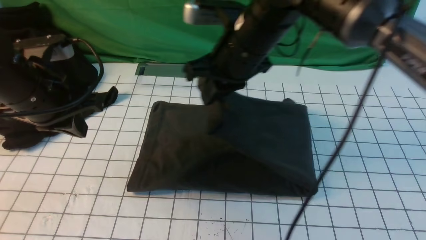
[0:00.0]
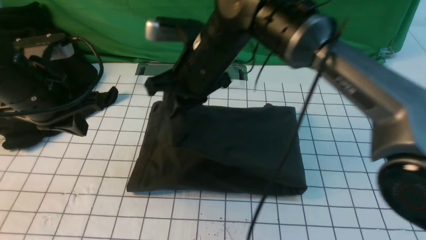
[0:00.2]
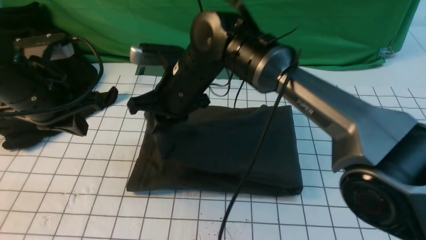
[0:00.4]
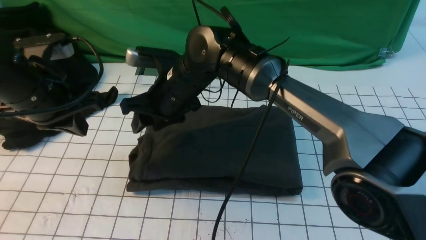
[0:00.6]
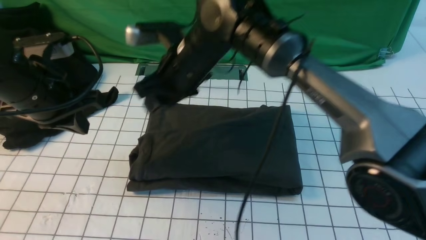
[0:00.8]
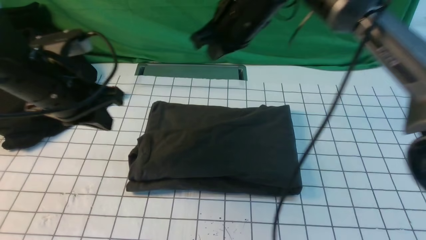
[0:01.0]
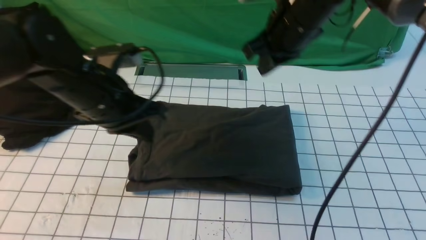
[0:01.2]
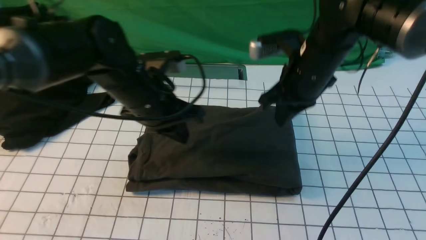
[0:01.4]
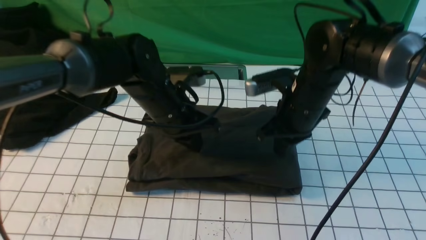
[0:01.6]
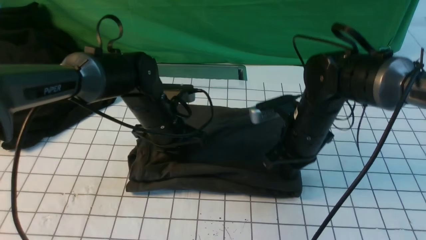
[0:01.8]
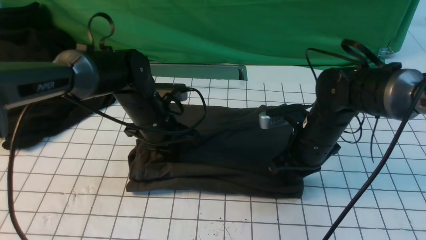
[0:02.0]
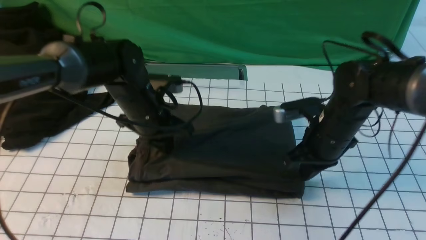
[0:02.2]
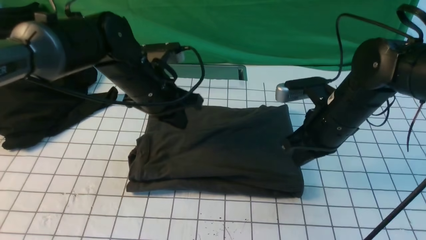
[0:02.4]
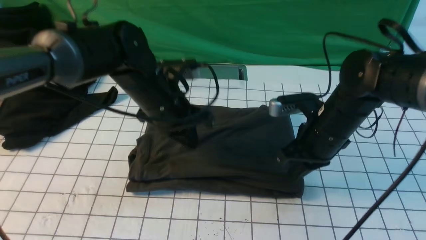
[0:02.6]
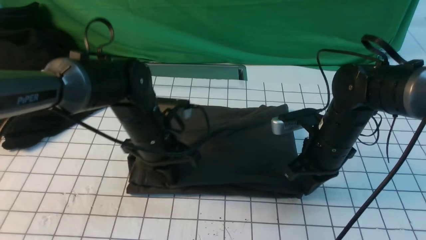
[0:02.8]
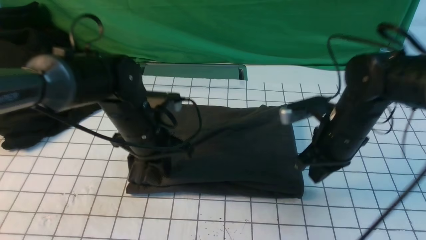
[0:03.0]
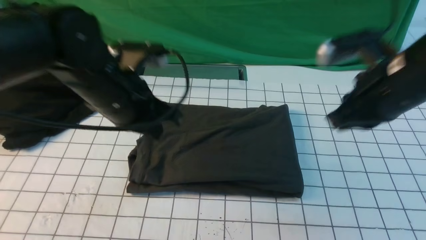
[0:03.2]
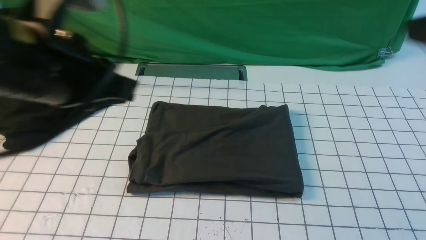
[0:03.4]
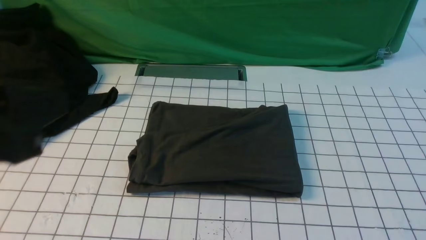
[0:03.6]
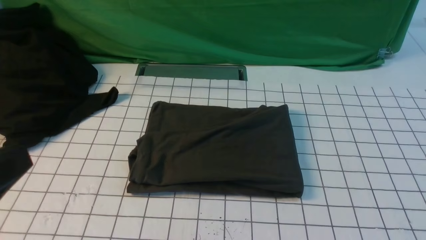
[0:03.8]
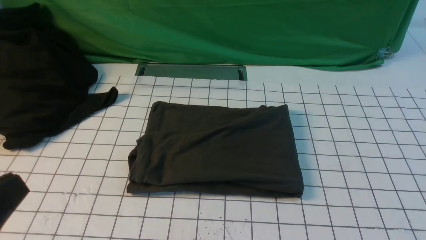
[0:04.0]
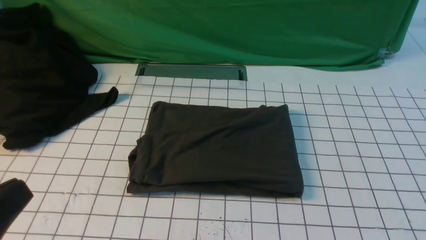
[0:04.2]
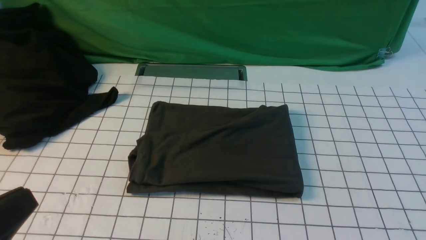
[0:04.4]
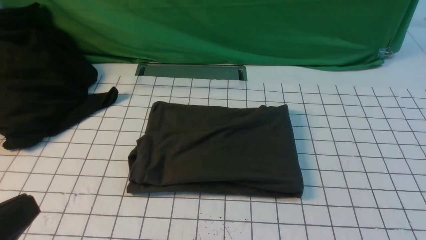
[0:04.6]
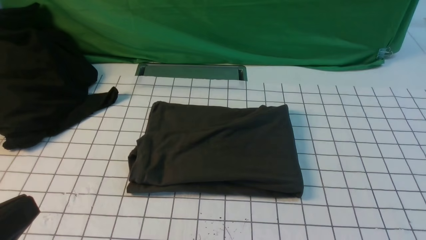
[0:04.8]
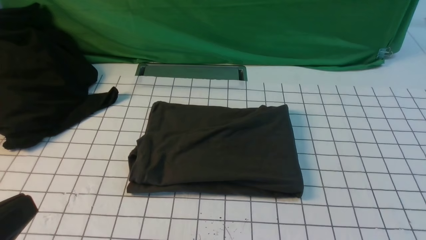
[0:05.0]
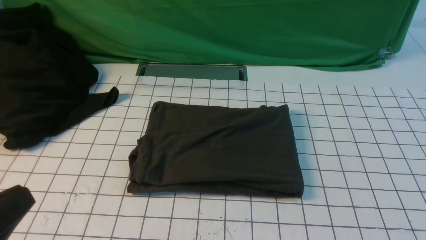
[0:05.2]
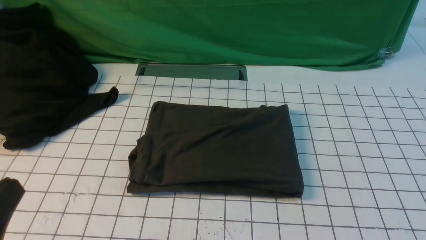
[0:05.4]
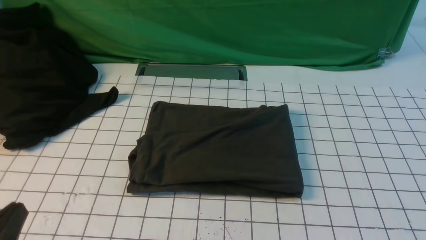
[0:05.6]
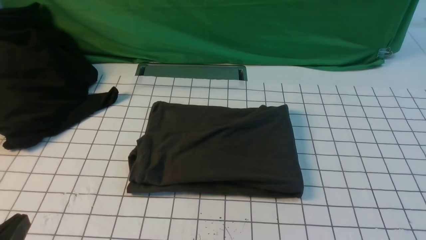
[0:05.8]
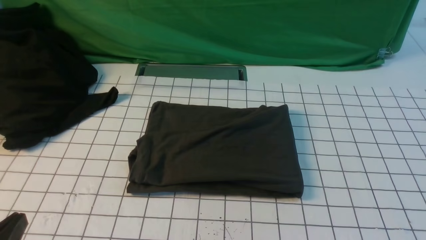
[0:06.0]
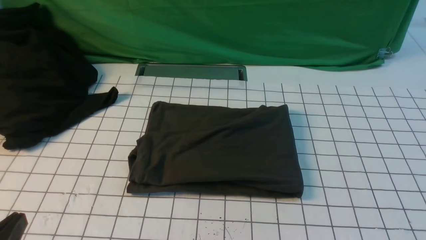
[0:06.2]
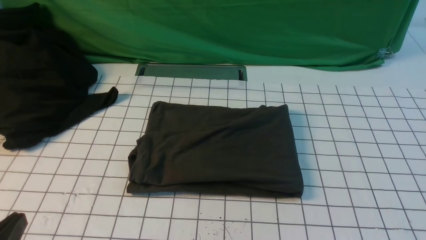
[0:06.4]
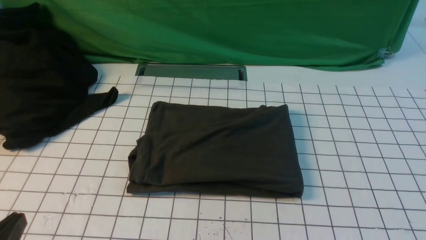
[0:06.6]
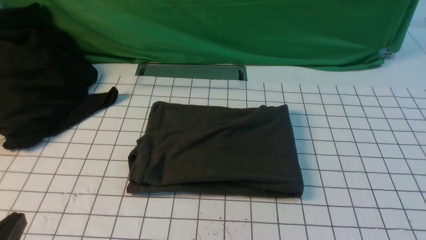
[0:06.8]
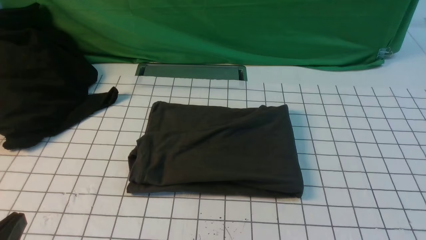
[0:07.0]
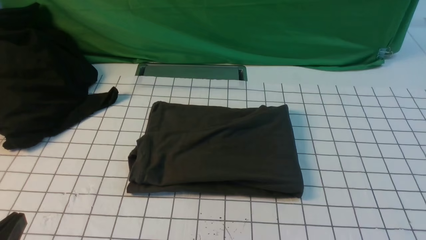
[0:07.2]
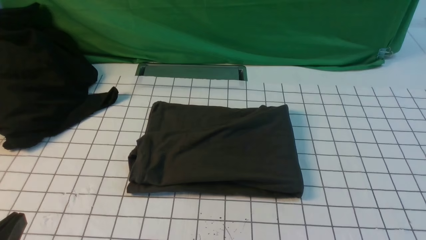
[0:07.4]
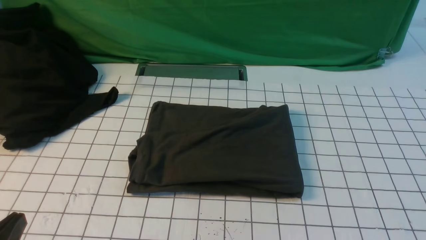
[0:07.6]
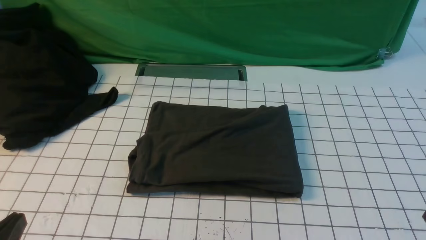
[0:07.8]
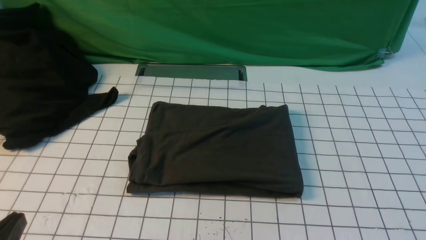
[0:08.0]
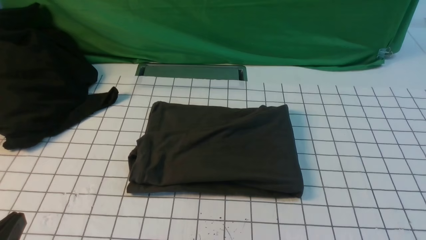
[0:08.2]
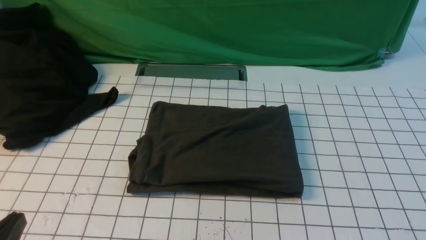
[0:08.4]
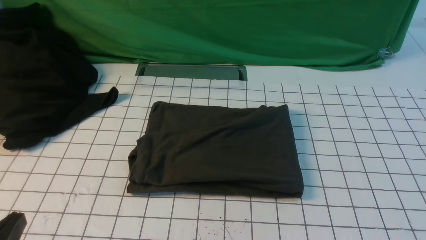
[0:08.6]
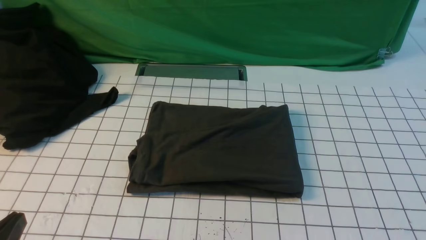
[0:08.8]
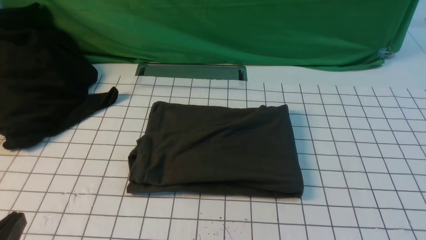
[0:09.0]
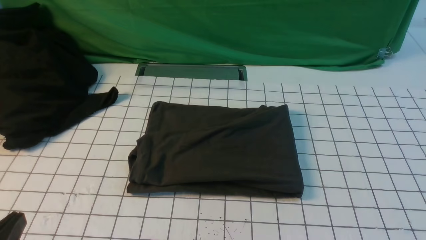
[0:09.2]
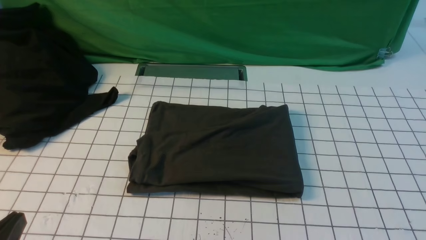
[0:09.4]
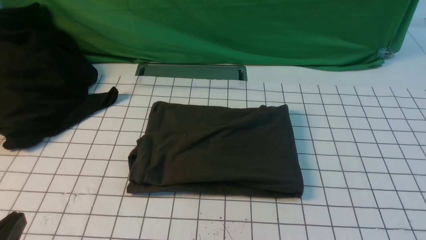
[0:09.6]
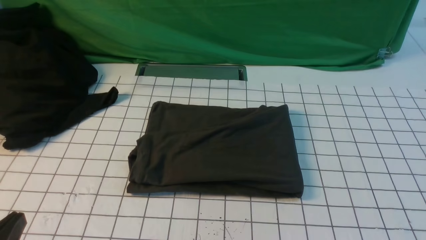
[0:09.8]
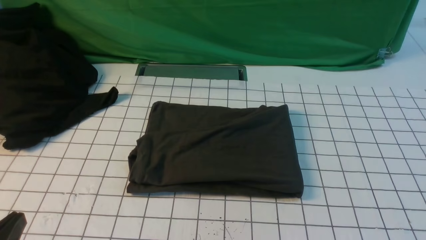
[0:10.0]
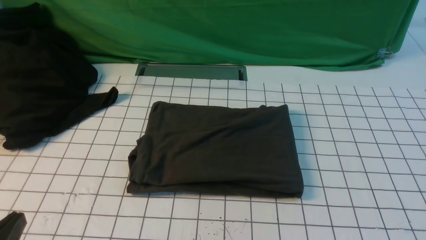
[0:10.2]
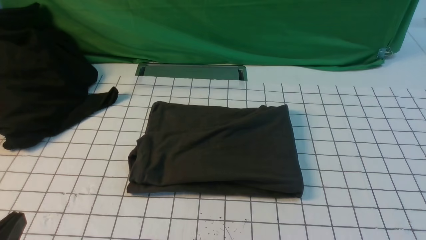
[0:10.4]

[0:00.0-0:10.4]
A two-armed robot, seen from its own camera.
0.0 to 1.4 s: Both grippers travel together to the right, about 10 cm. The right gripper opens and closes again.
1.4 to 3.0 s: The right gripper shifts some 10 cm backward and to the right, and goes downward and returns, approximately 10 cm each way.
3.0 to 4.4 s: The right gripper travels backward and to the right by some 35 cm, while the left gripper goes roughly 30 cm backward and to the left.
4.4 to 6.0 s: The left gripper is displaced downward by about 10 cm.
9.0 to 10.4 s: Both grippers stay put.

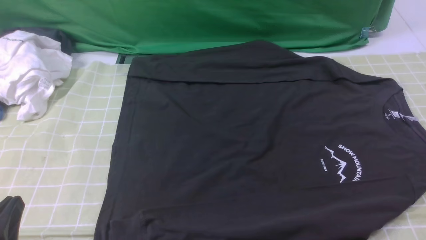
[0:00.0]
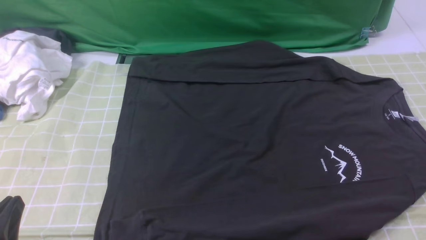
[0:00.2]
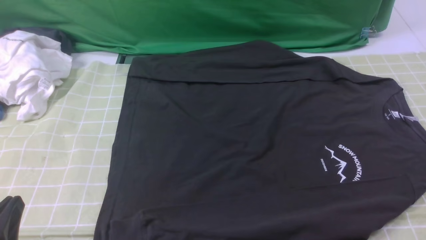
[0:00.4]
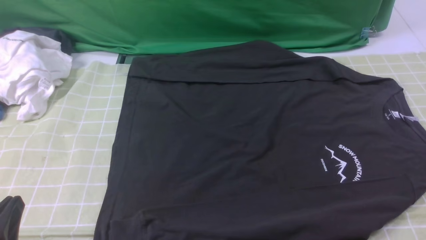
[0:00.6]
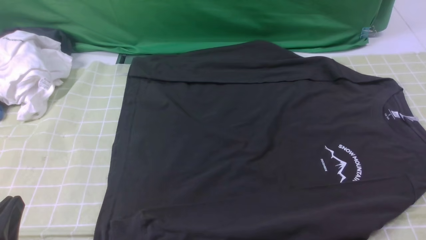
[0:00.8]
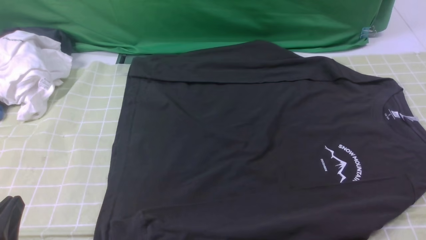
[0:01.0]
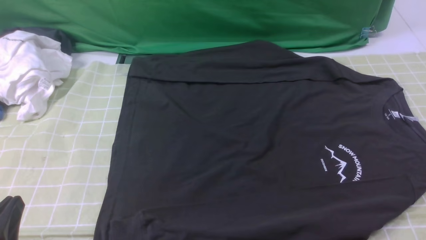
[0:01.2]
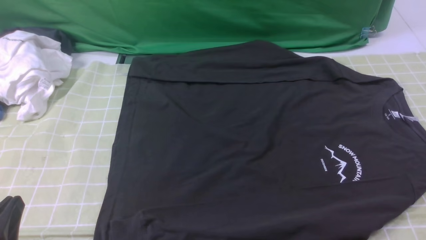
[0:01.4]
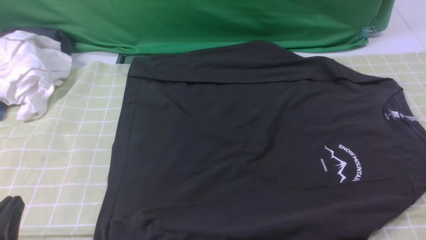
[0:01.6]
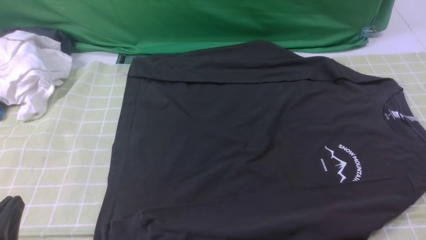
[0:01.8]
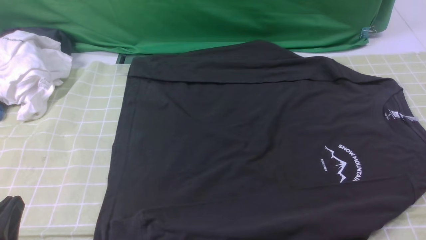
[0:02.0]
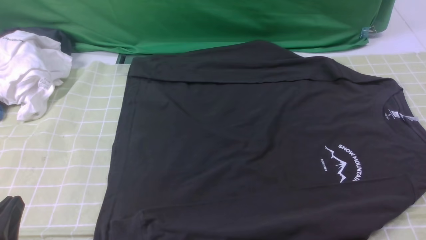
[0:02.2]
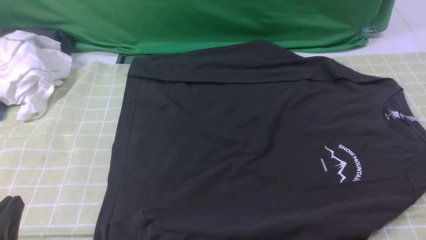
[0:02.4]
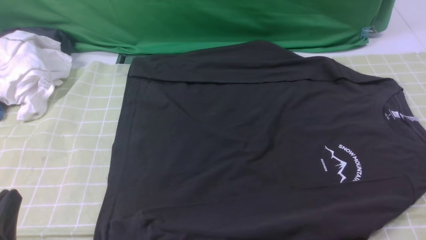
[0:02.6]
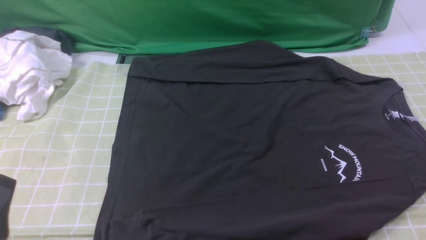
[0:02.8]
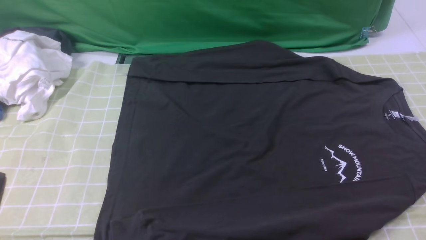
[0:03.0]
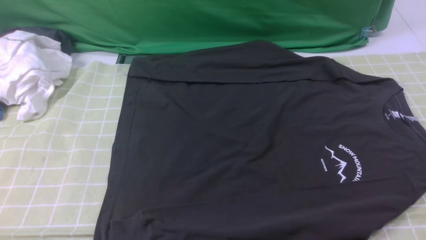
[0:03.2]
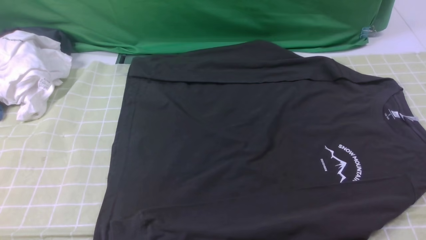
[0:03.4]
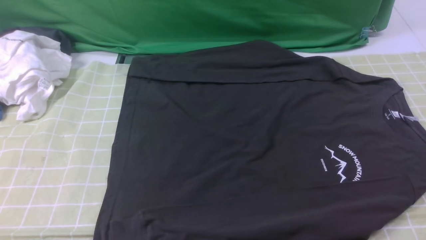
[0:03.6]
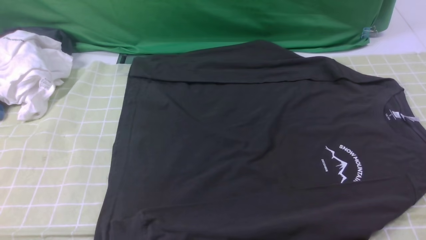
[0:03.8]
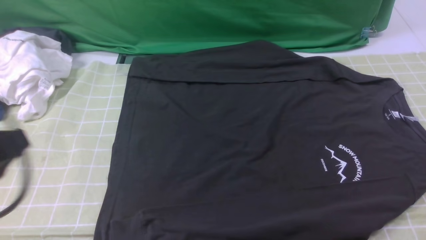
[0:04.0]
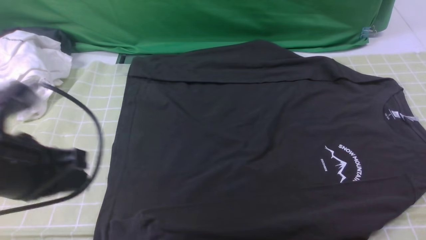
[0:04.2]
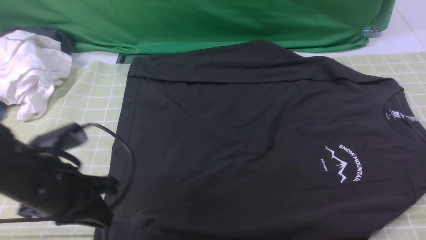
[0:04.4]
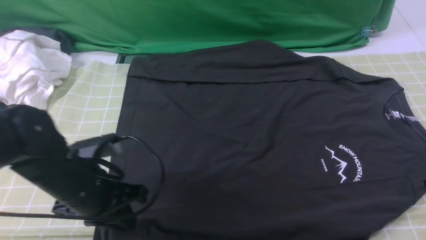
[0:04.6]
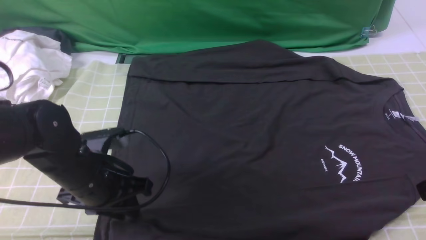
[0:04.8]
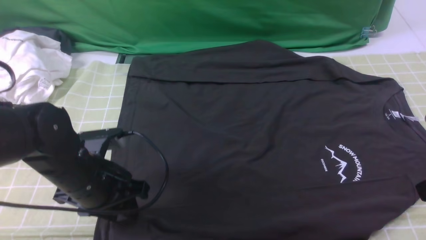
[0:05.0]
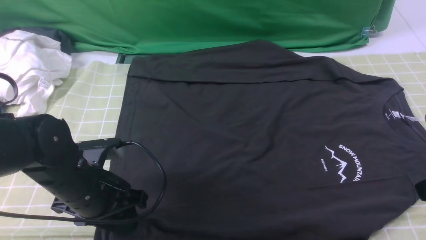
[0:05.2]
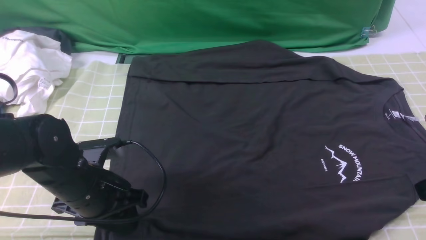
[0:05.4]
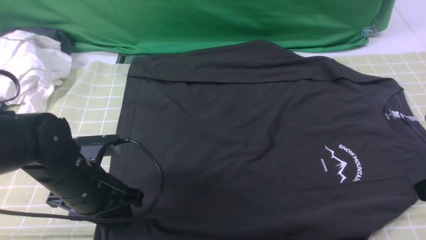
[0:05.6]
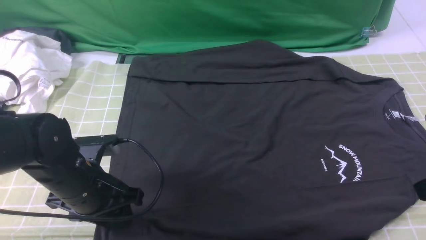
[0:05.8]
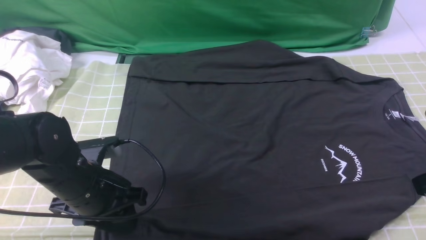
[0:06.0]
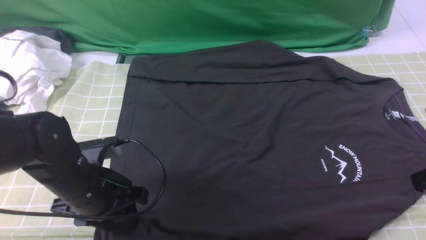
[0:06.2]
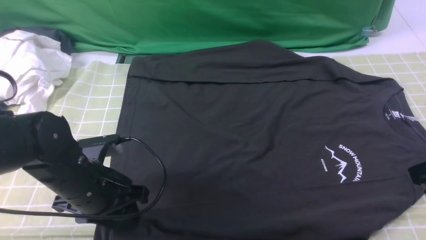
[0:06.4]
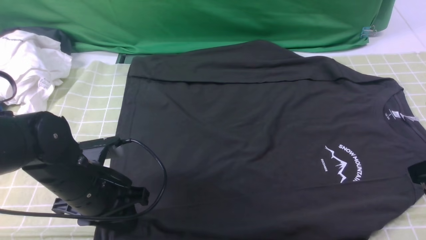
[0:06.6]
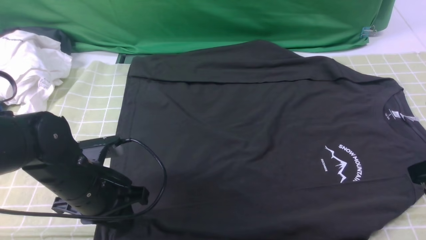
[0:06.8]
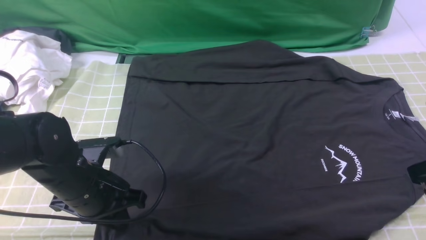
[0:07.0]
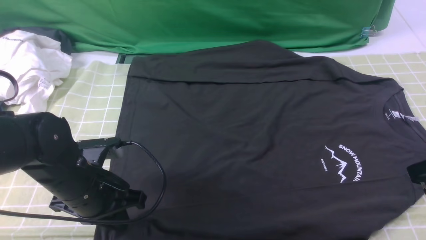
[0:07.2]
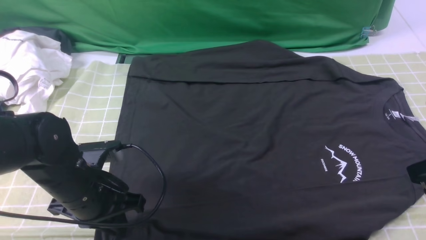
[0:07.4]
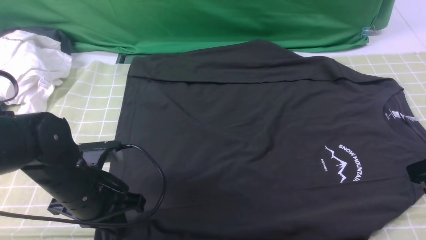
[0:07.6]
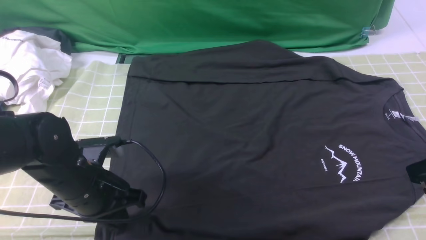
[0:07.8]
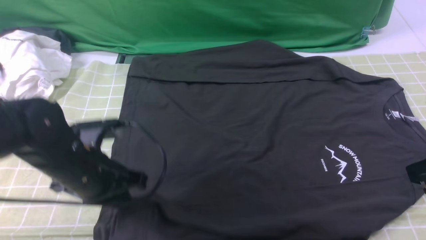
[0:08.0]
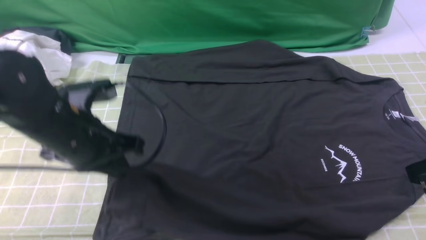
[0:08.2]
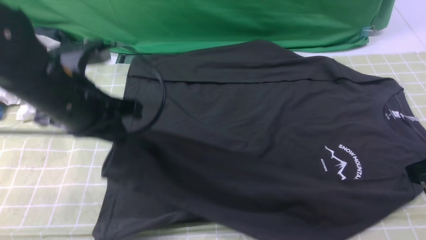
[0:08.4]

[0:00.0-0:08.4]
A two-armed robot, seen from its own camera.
Step, 0.0 to 7.8 s: use the left arm to clamp the cuff closest to it.
0.0 to 1.4 s: Both grippers stay about where they are.
2.8 to 4.2 s: The left gripper shifts some 15 cm forward and upward.
4.2 to 5.6 s: The left gripper moves downward and forward, approximately 10 cm, and opens its fingers.
5.6 to 7.0 s: The left gripper closes up.
7.0 to 8.4 s: The left gripper moves upward and forward, about 15 cm.
